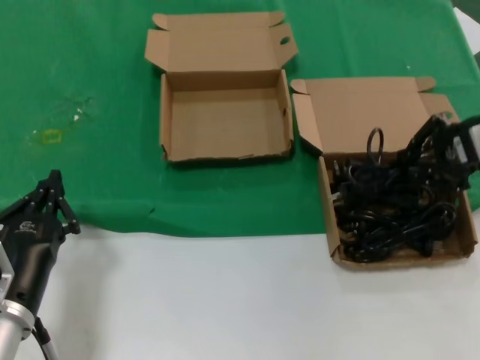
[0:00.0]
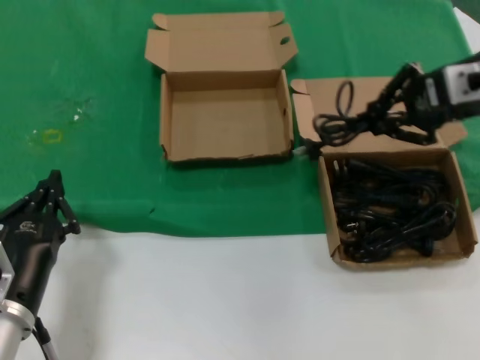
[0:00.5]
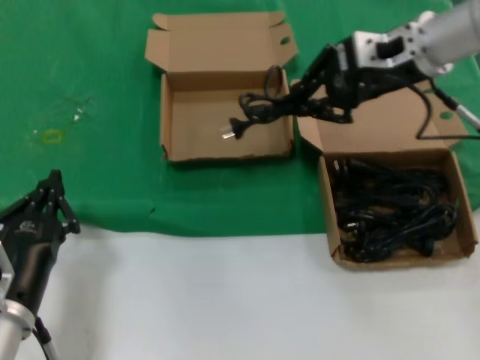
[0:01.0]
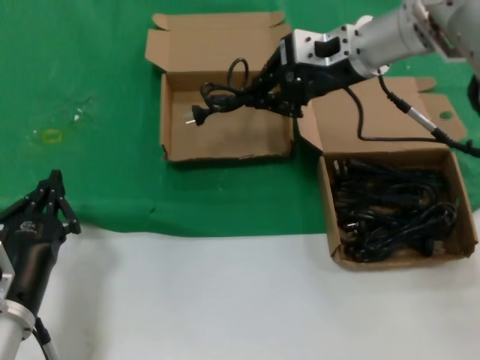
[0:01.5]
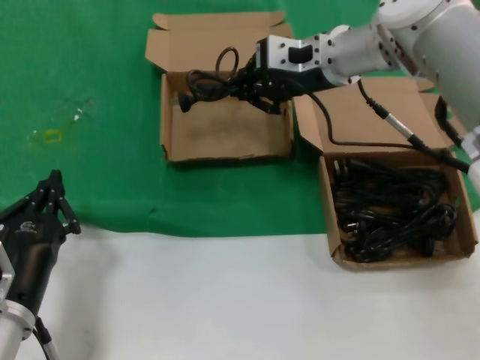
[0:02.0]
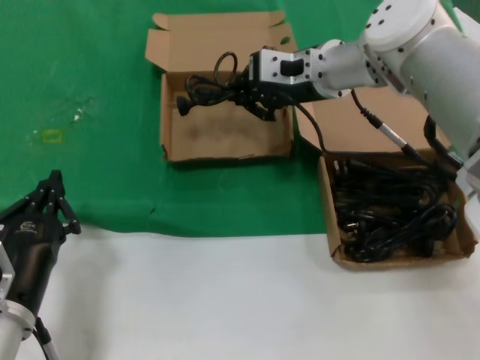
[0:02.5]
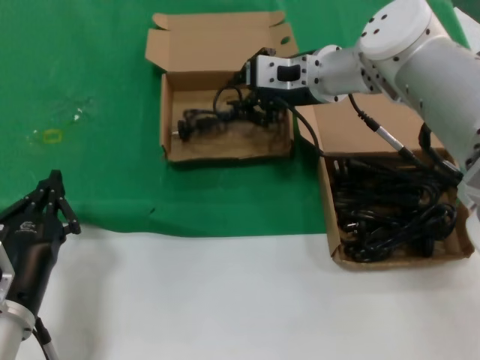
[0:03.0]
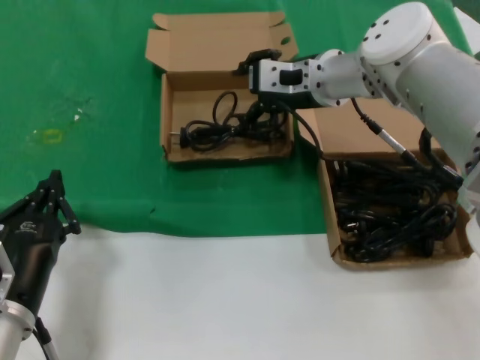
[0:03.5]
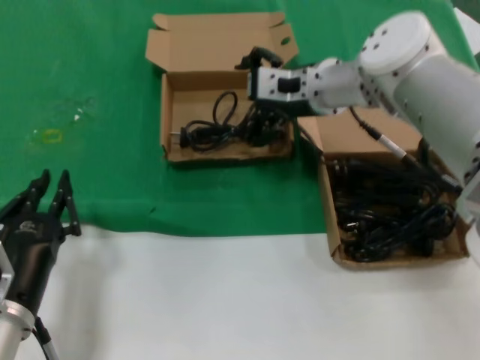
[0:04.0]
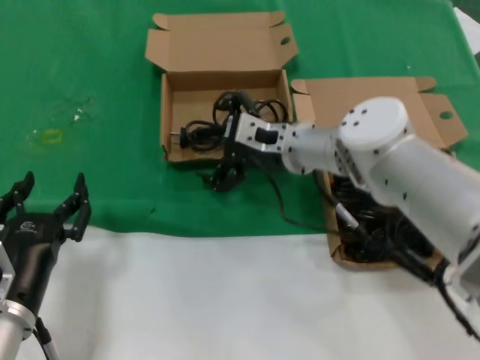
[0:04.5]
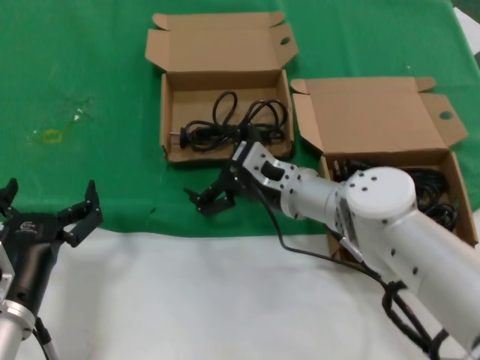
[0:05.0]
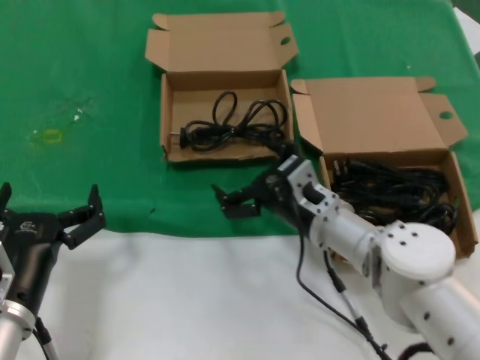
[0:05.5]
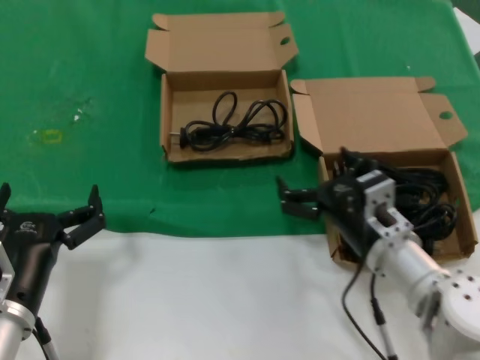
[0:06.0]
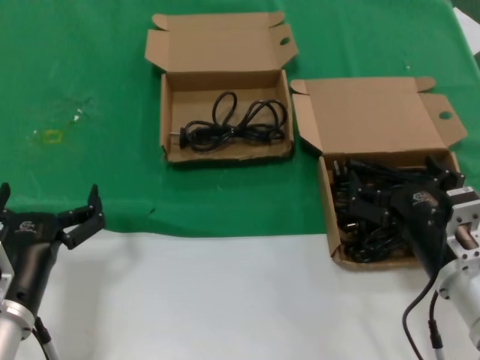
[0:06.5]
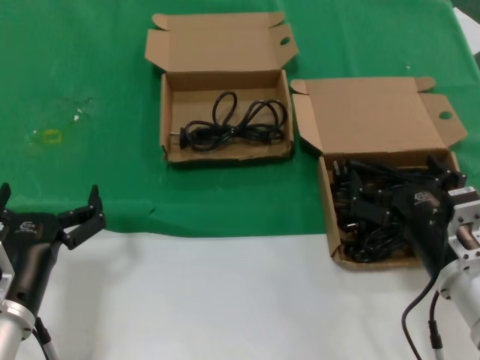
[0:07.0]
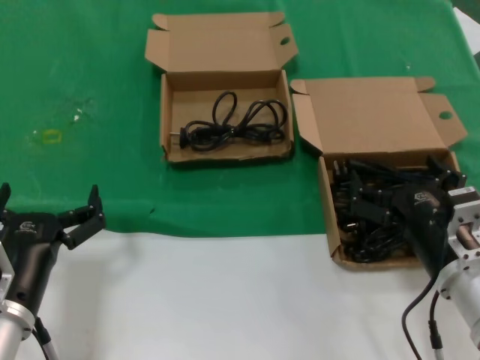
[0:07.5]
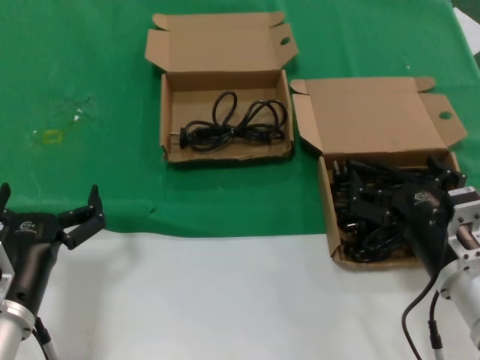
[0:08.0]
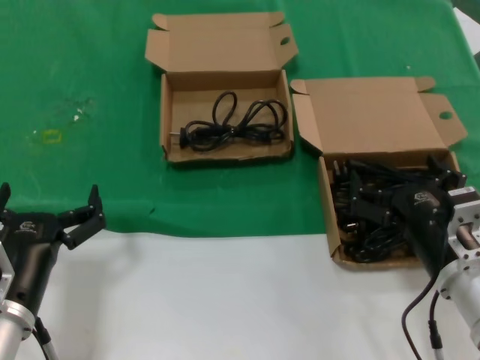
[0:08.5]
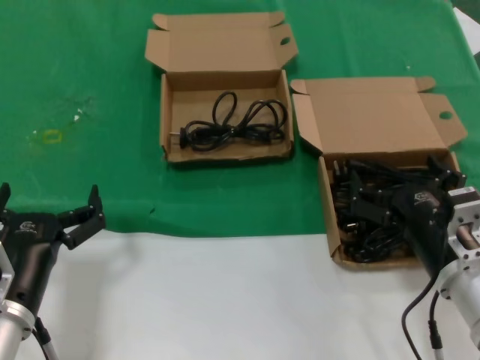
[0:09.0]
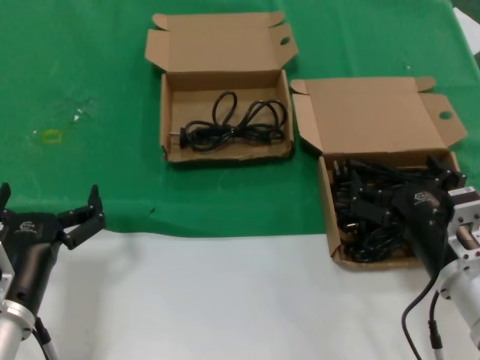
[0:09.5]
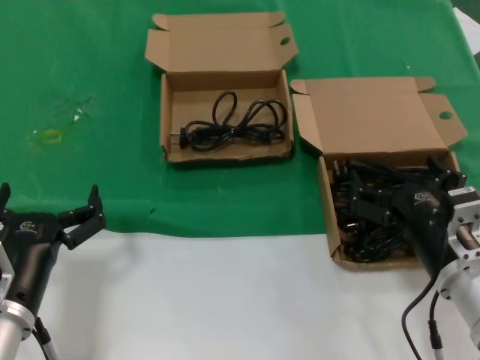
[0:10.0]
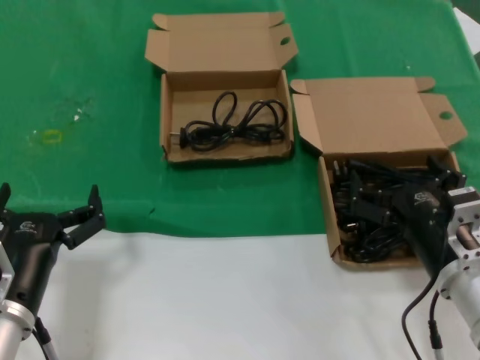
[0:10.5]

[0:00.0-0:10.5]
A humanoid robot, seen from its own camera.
Task of the whole recording: take the parts from the box containing them and put them into an empty box.
Step, 0:00.0 to 0:03.0: Place the data cable in the another box.
0:00.0 to 0:02.0: The right hand travels to the left and forward by roughly 25 cm.
0:02.0 to 0:04.0: The right hand shifts by roughly 5 cm.
0:04.0 to 0:06.5: The right hand heads backward, downward and to the right, covering approximately 35 cm.
0:06.5 to 0:10.5: The two hands keep their place.

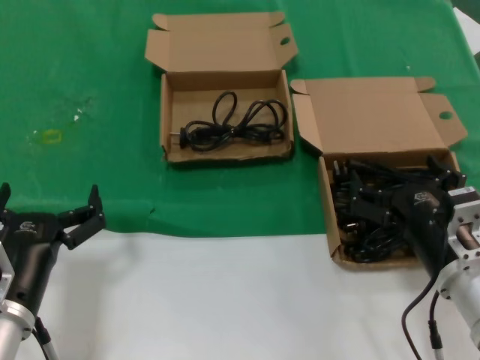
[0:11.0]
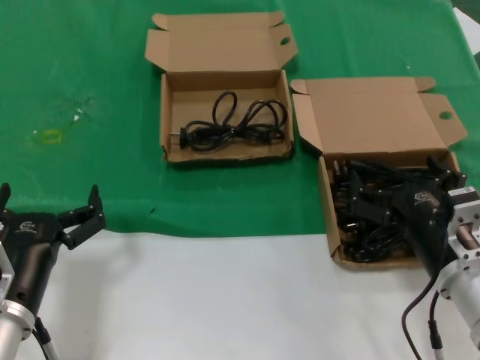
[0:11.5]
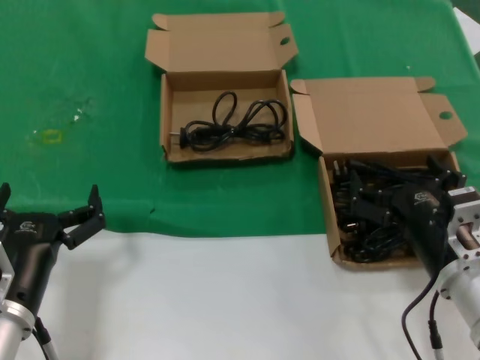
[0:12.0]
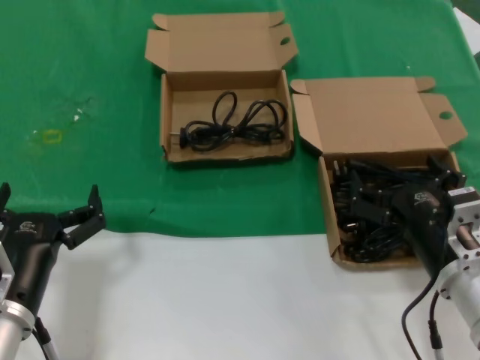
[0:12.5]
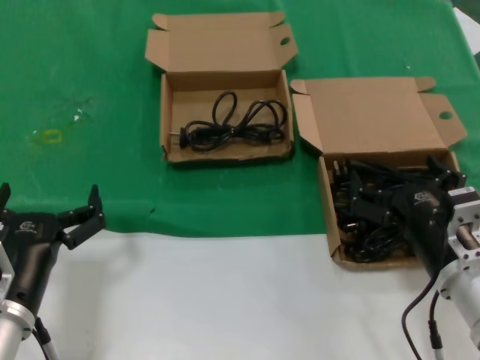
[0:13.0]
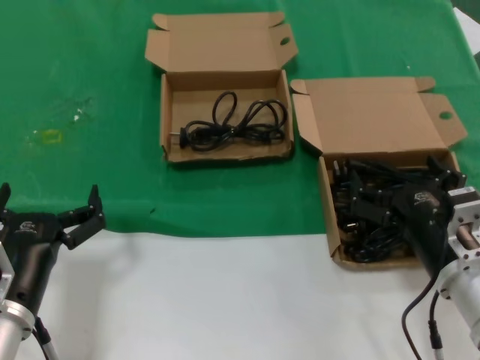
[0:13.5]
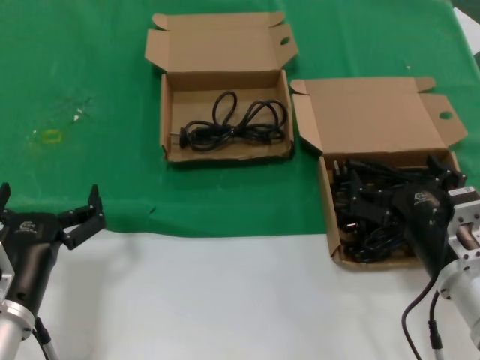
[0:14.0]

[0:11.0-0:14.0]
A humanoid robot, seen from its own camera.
Task of the whole recording: take the parts from the box containing them and put them into an empty box.
0:11.0 to 0:14.0: Neither hand changes place.
